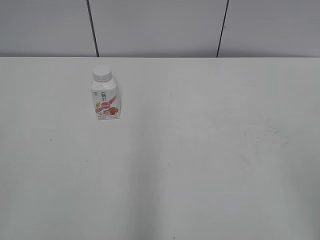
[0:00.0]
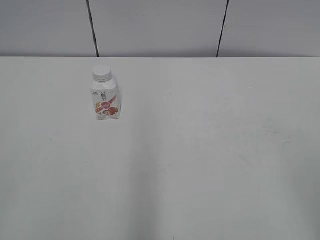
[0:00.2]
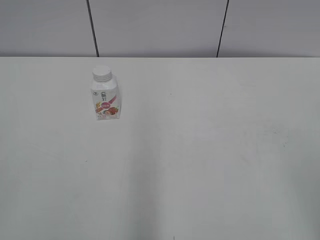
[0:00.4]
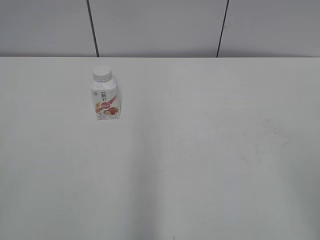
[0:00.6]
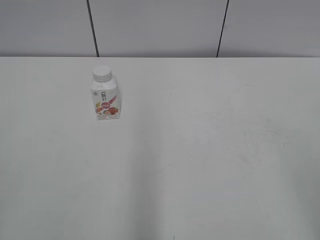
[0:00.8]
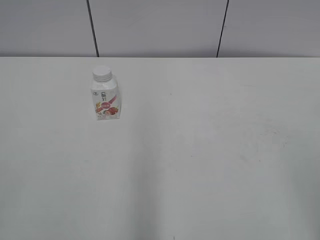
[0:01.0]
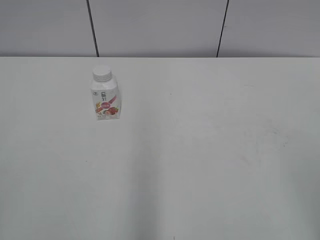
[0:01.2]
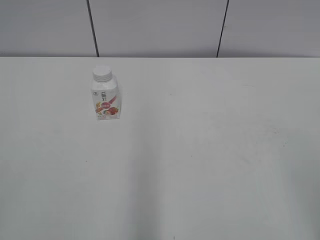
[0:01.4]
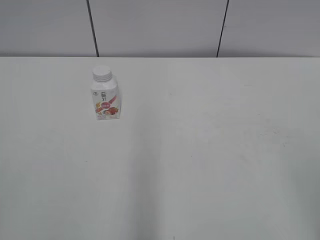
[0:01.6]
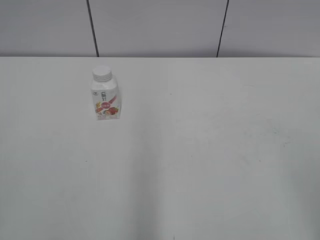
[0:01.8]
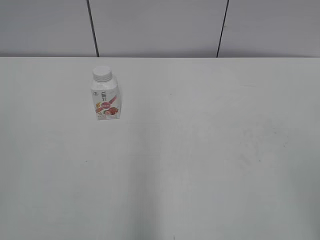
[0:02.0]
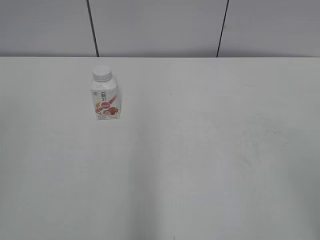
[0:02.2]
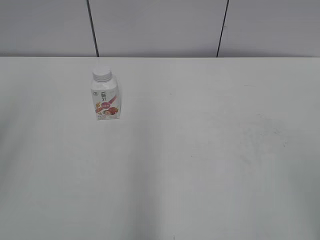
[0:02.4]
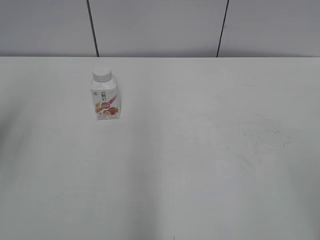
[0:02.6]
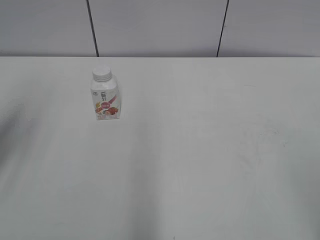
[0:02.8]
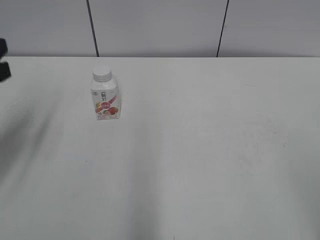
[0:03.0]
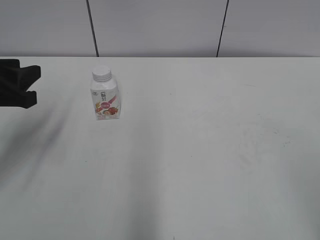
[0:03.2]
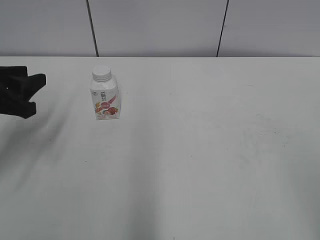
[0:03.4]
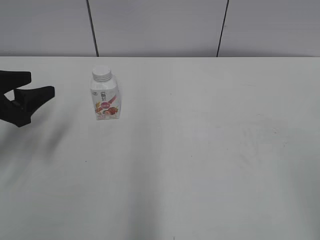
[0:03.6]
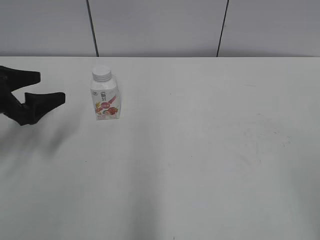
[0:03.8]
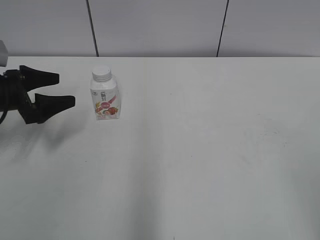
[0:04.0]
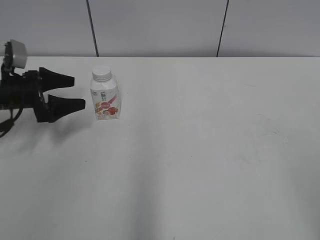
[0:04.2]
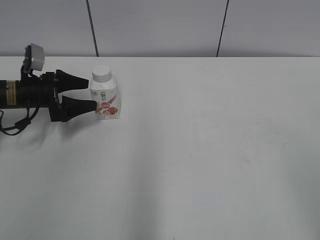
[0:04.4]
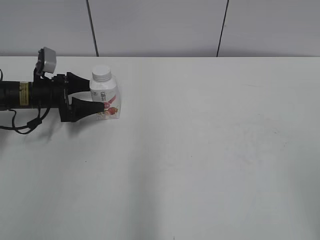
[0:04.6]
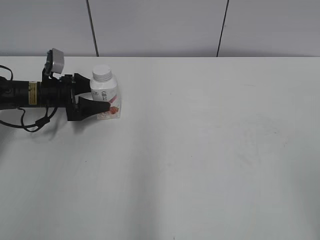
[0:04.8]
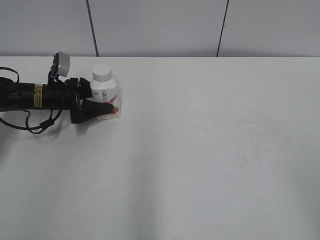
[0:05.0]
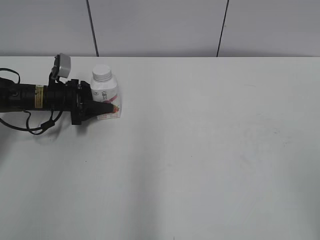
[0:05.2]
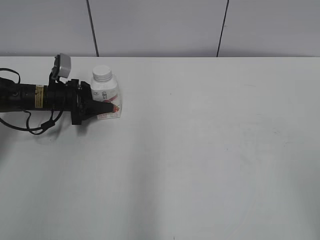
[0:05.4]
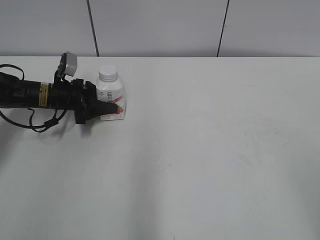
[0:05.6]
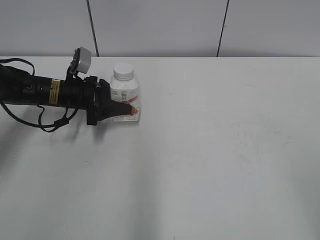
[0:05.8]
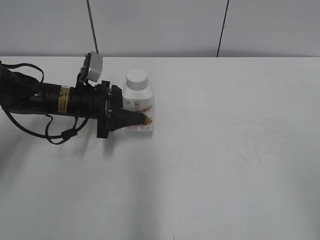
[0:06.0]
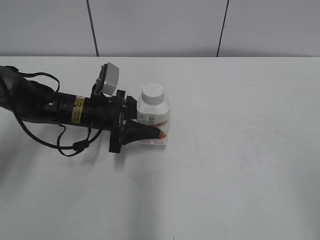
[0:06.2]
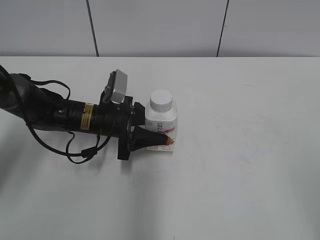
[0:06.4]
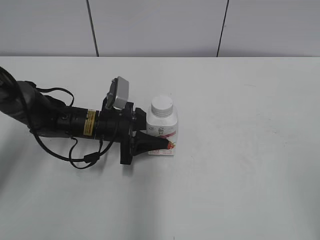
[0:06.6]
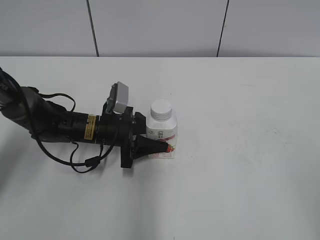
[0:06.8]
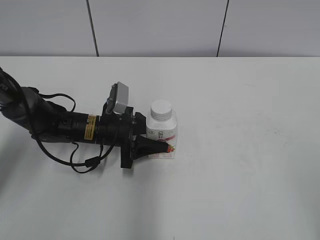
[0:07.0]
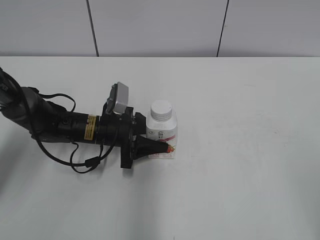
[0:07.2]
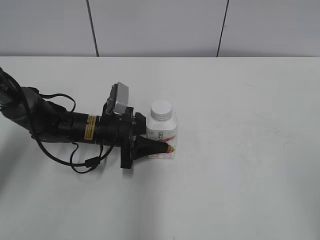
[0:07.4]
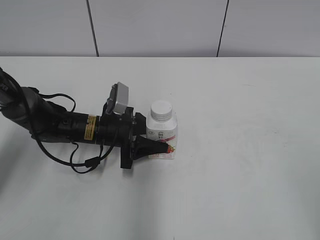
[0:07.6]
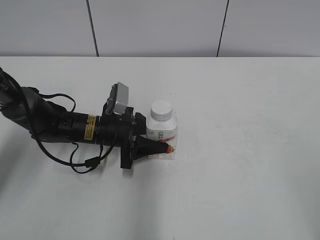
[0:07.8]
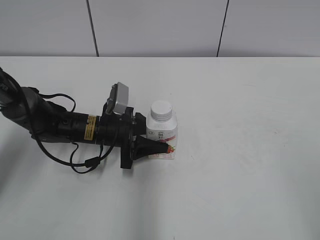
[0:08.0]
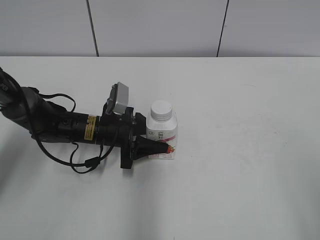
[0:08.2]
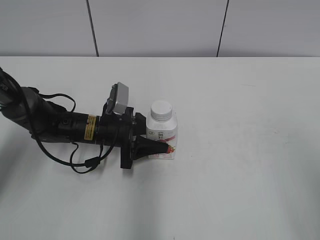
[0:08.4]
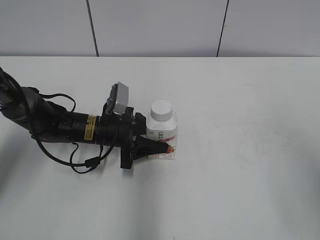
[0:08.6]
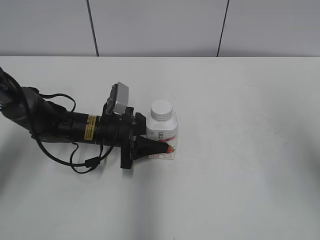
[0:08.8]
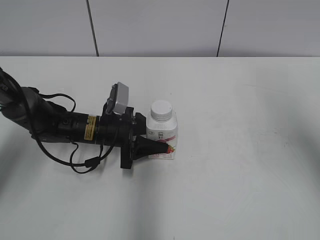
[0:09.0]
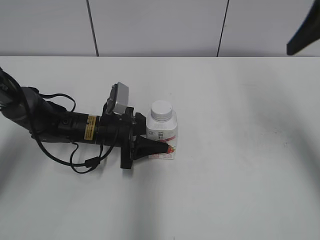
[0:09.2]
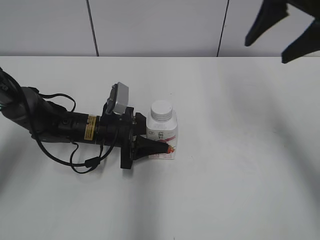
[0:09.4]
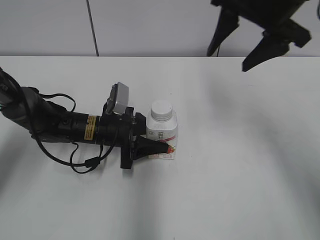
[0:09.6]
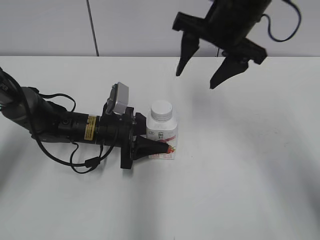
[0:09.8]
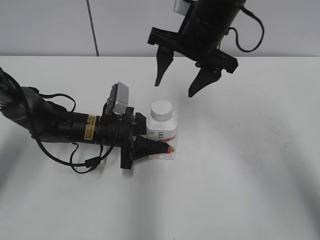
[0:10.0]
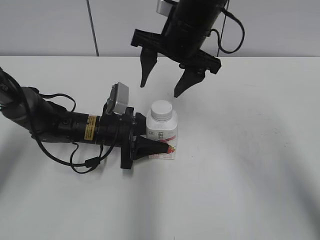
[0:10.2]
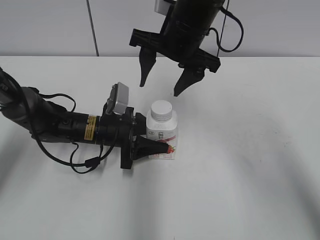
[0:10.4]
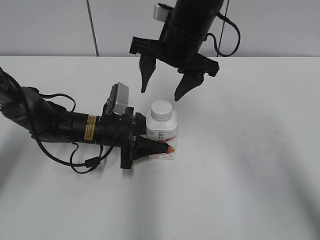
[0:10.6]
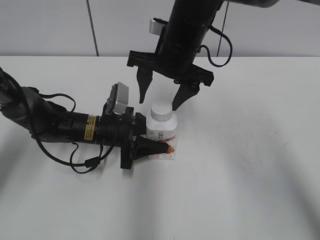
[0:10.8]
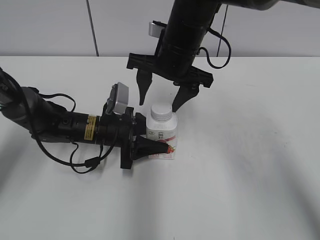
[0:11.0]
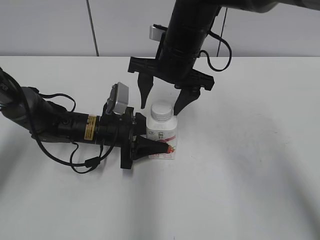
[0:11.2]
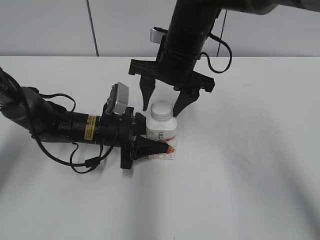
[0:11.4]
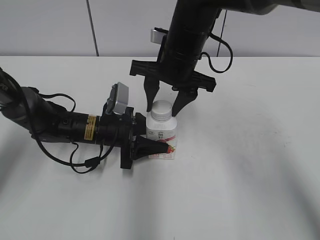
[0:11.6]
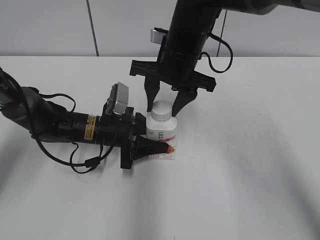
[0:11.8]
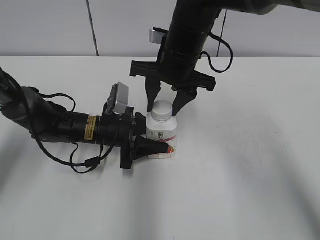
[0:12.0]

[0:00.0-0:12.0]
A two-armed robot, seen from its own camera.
Step, 0:00.0 to 0:05.0: Grab the Yili Changqing with the left hand.
Step, 0:05.2 to 0:07.4: Move the Yili Changqing from left to right.
0:01.6 to 0:03.0: The left gripper goes roughly 25 cm forward.
0:03.0 to 0:04.4: The left gripper moves forward and downward, roughly 25 cm, and opens up.
0:04.4 to 0:06.0: The left gripper shifts some 10 cm to the right, and closes up.
0:06.0 to 0:07.6: The left gripper moves to the right, about 5 cm.
0:07.6 to 0:09.0: The right gripper travels forward by about 20 cm.
0:09.0 to 0:10.4: The right gripper goes roughly 30 cm to the left, forward and downward.
0:10.4 to 0:12.0: The right gripper closes its fingers.

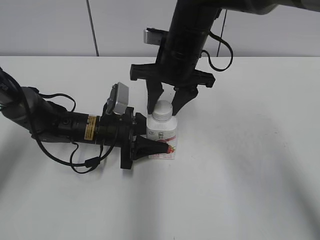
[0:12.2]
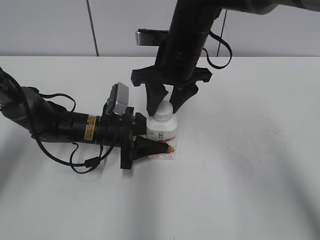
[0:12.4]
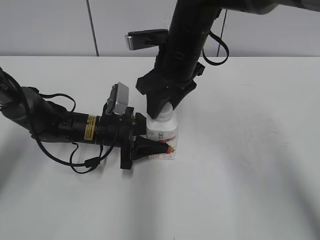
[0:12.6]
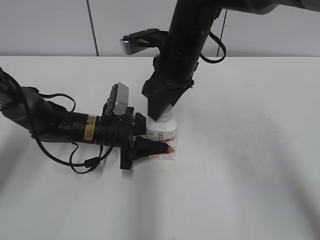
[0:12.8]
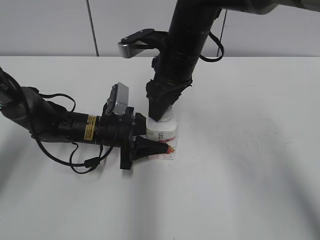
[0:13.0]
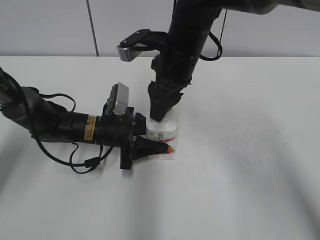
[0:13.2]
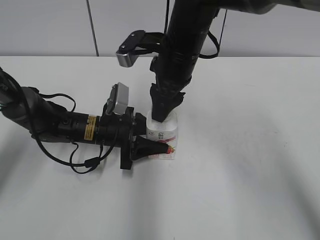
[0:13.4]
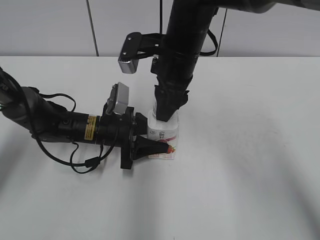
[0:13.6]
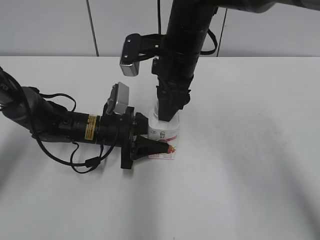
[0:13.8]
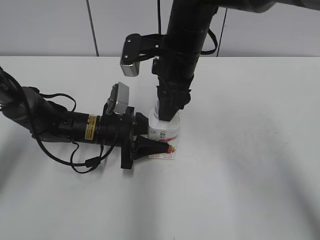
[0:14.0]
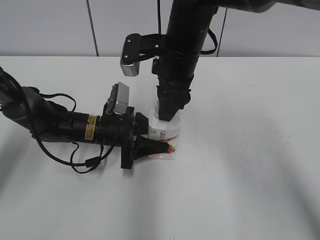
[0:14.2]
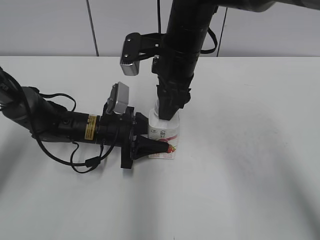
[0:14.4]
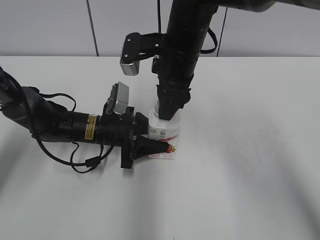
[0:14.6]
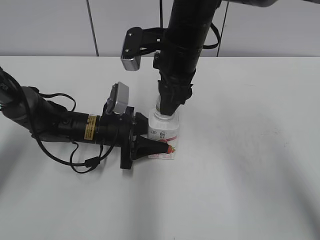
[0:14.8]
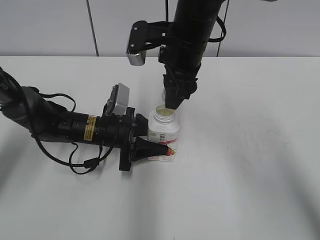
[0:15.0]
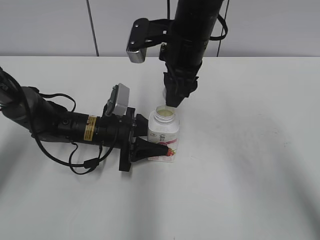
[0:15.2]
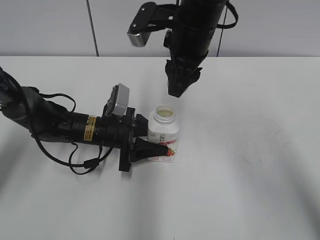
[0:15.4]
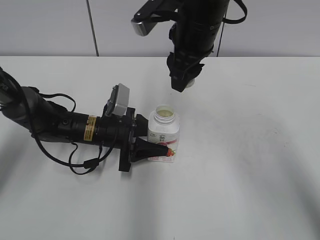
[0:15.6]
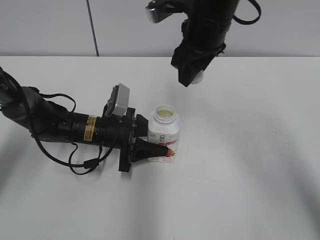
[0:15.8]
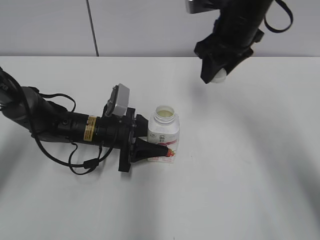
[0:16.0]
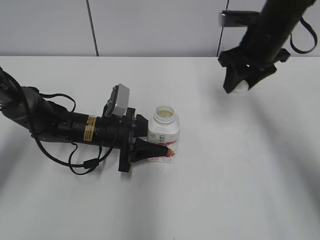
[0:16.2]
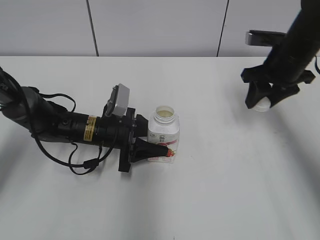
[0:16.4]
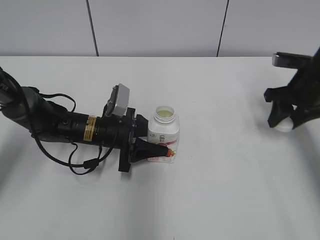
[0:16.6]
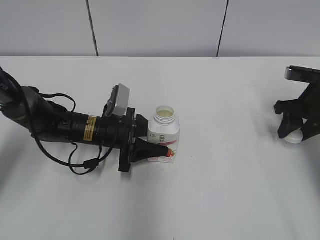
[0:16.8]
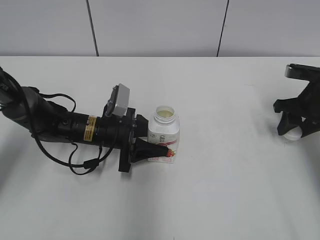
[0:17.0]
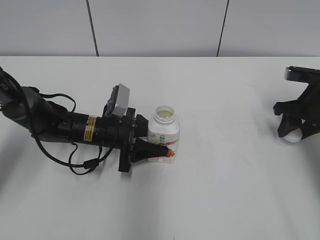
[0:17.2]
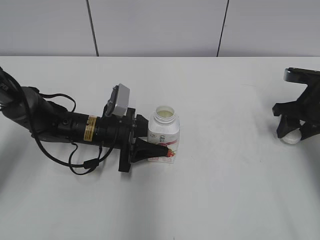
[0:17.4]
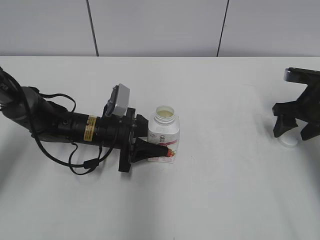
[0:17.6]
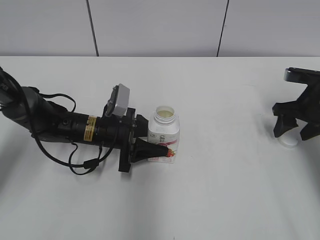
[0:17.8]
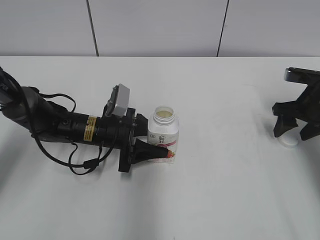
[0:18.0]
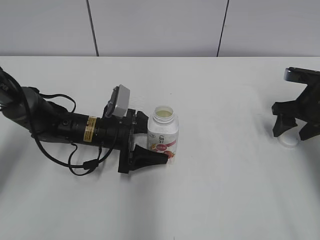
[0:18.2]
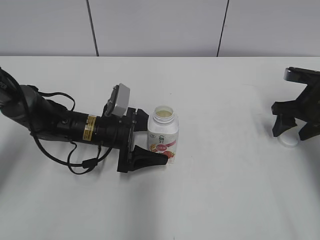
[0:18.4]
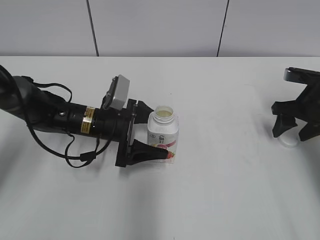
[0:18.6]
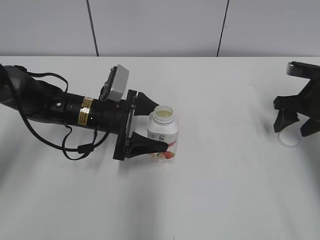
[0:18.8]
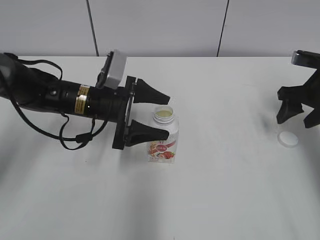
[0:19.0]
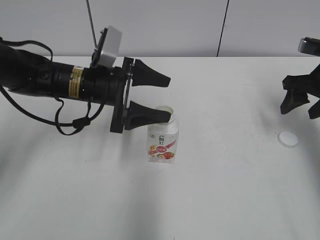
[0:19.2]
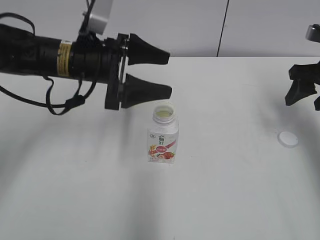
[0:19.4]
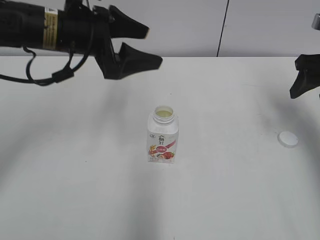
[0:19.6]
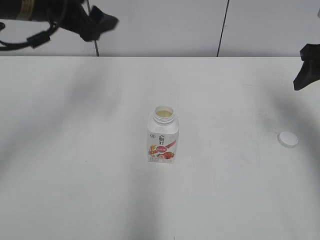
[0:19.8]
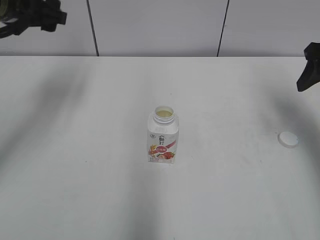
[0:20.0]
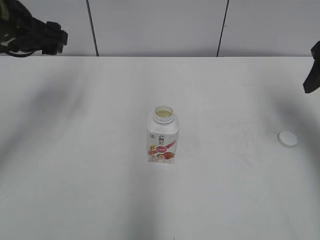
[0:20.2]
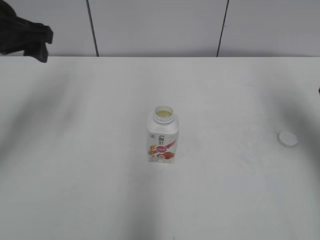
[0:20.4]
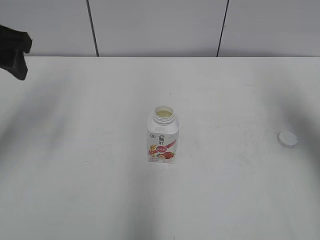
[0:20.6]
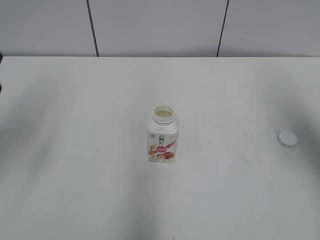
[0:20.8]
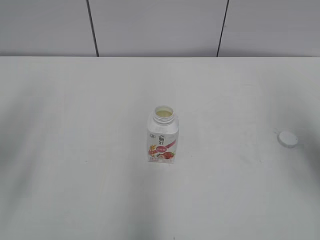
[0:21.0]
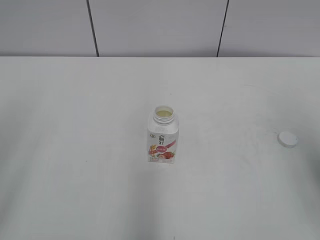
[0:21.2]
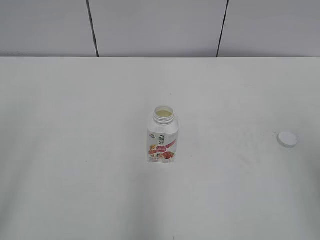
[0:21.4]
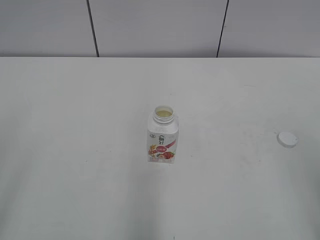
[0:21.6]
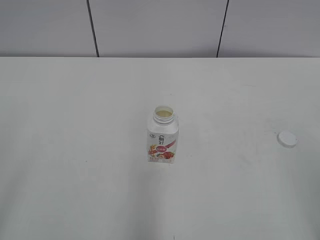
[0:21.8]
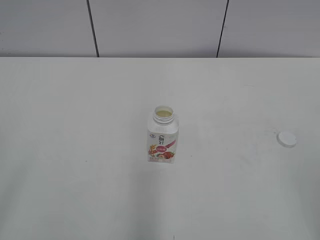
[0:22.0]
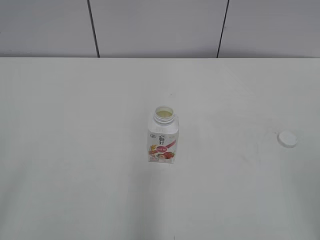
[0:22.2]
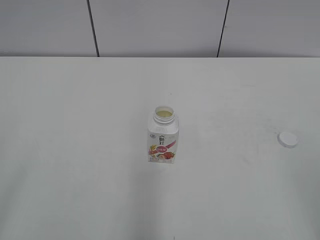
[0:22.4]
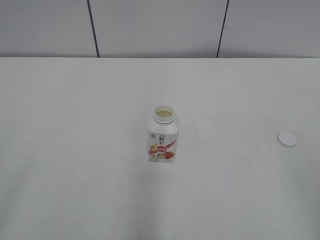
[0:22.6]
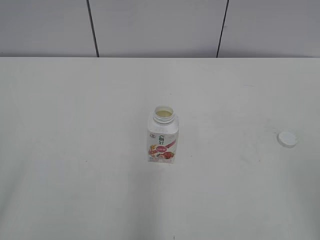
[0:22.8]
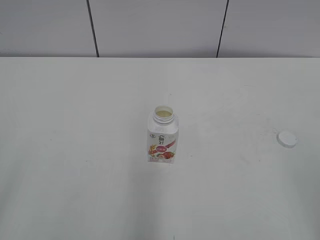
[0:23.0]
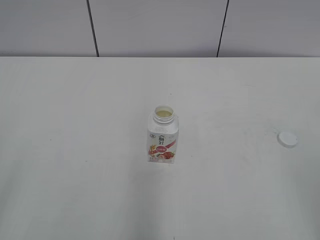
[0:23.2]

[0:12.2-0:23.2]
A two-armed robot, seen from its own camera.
Step, 0:12.2 to 0:14.6: Fix the Yili Changqing on the left.
Step, 0:14.8 to 0:17.4: Place the bottle cap on the right.
Step, 0:17.6 to 0:18.2: Place the Yili Changqing with the left hand.
0:13.8 to 0:15.4: There are only small adjustments of the grippers.
0:15.4 to 0:17.0: The right gripper travels to the right and downward by some 30 cm.
0:17.0 to 0:18.4: The left gripper opens up, while the right gripper opens up.
0:18.4 to 0:20.0: The left gripper heads upward, covering about 25 cm. Meanwhile the right gripper is displaced upward by approximately 15 cm.
0:20.0 to 0:21.6: Both grippers move backward, roughly 30 cm.
